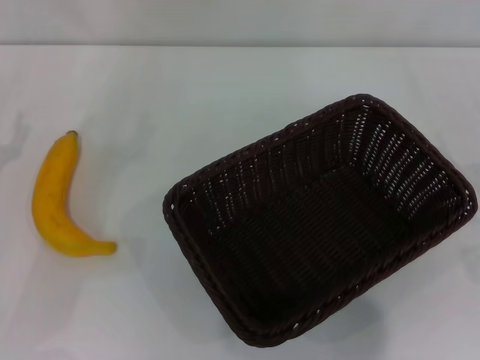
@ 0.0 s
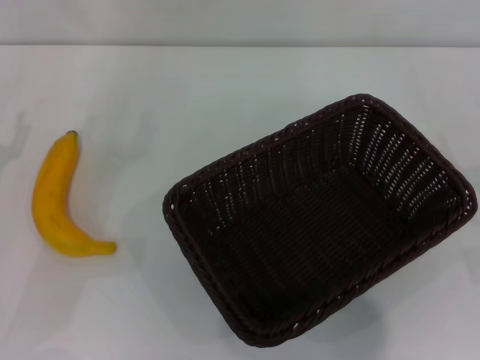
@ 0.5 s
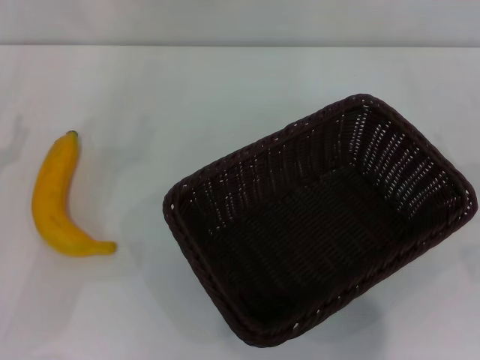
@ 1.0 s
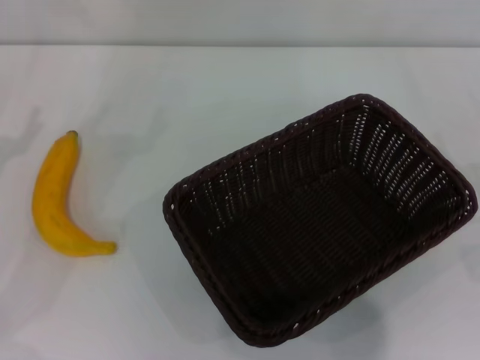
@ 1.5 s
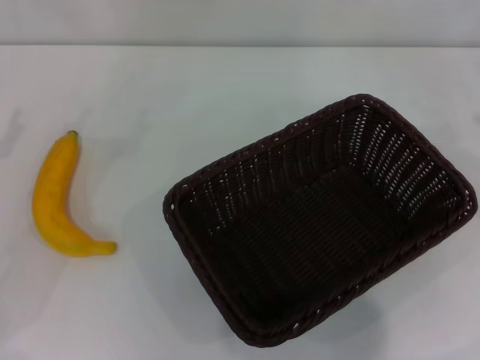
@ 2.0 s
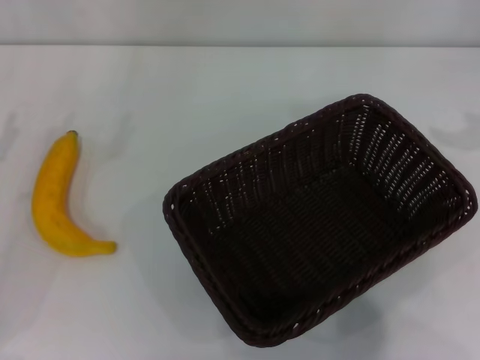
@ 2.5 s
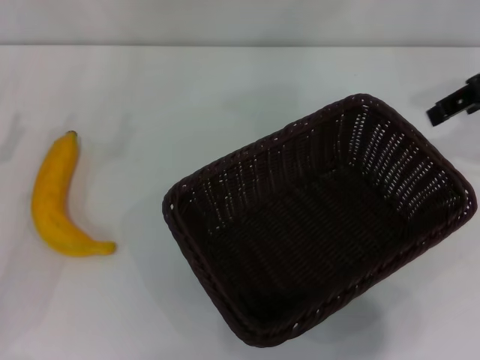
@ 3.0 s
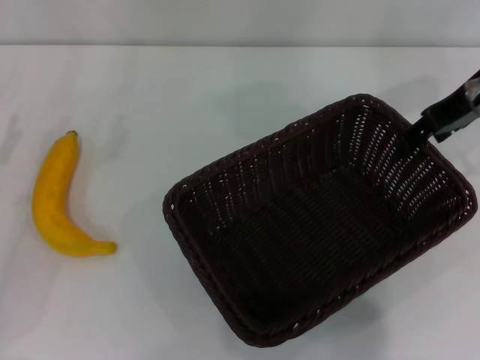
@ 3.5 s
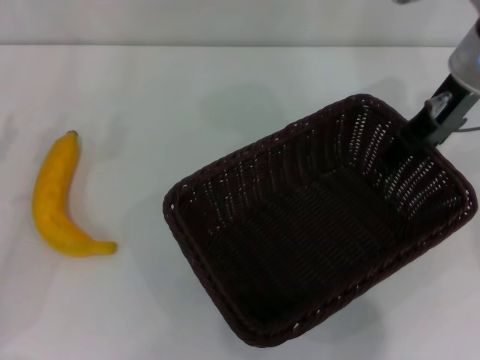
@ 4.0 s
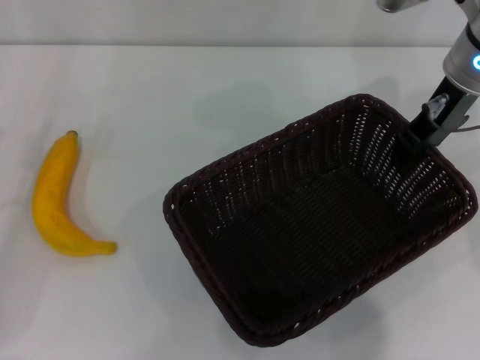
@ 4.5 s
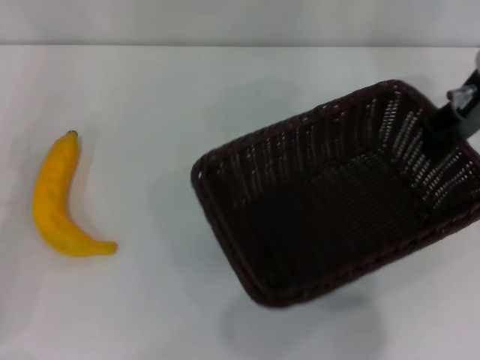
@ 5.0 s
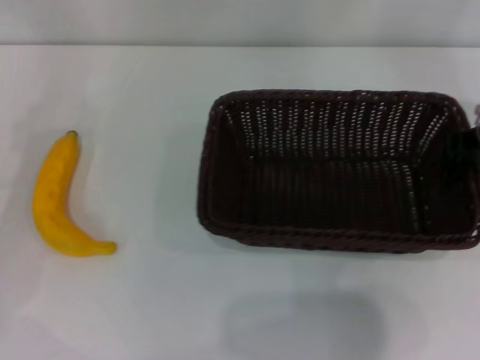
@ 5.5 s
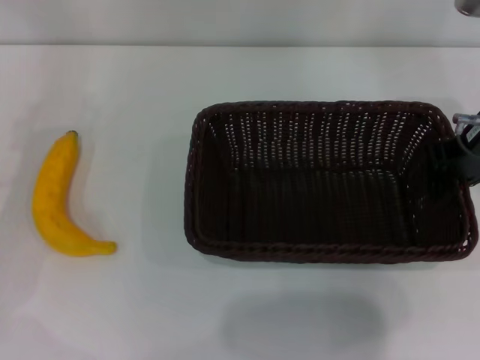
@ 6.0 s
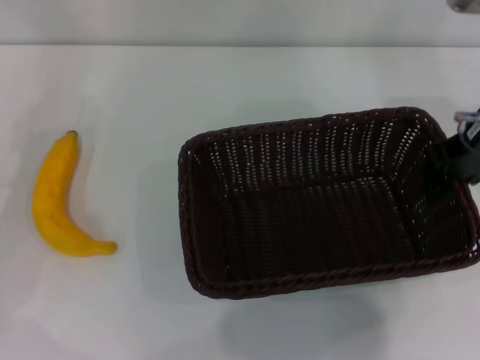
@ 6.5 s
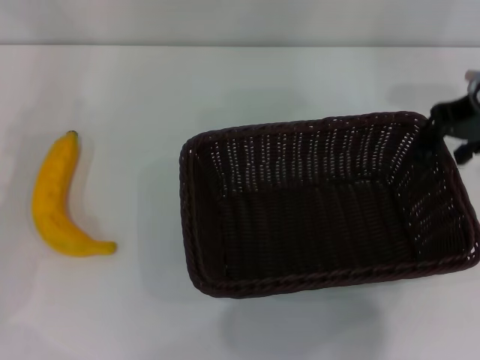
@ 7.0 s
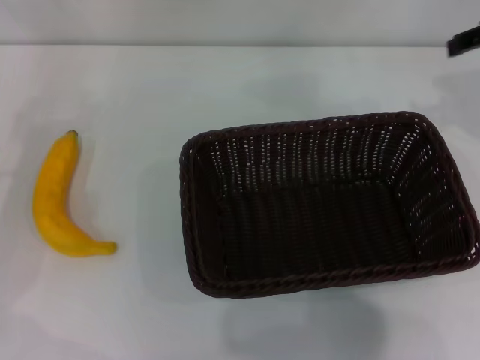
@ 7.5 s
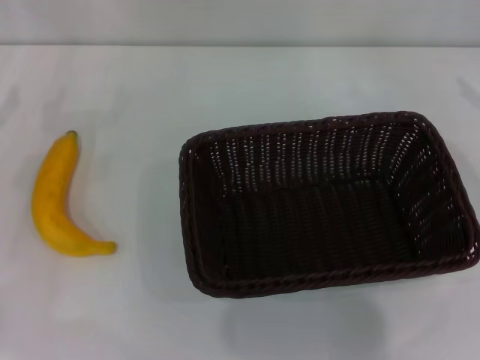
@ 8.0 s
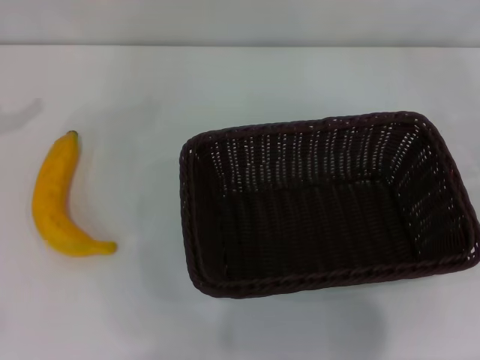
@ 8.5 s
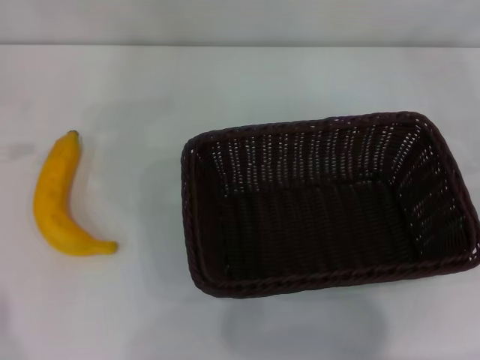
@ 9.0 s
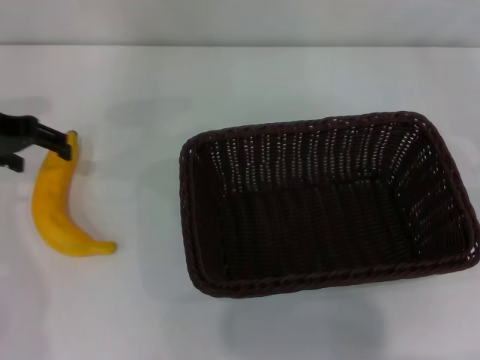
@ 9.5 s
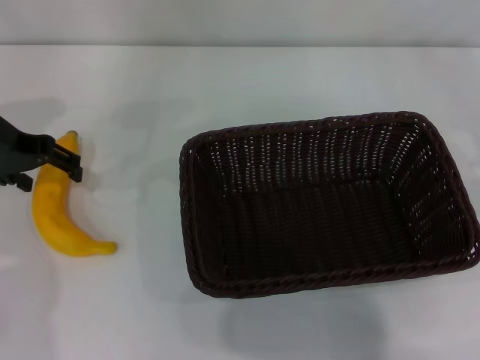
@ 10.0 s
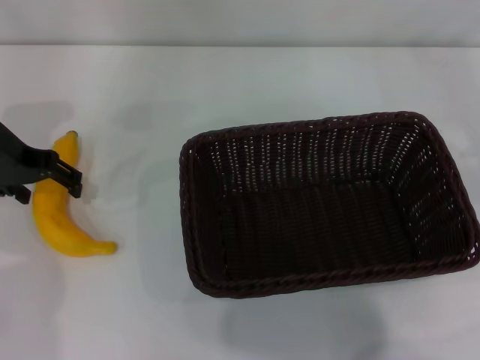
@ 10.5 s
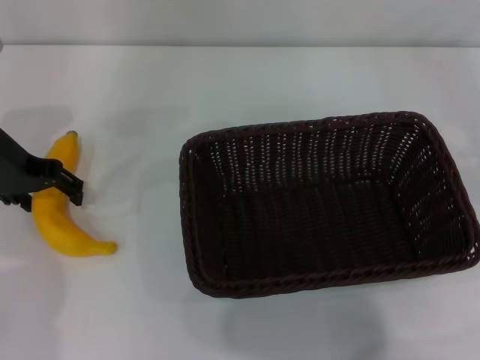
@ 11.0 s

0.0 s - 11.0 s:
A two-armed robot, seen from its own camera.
Step, 0.0 s - 4.5 s: Pick up the dark basket with the right gripper.
Step, 5.0 s - 6.5 s: Place the dark basket in the center of view with the right gripper.
2.0 s - 3.5 s: The right gripper goes about 25 cm to the left, forward and upward.
3.5 s - 5.5 s: The left gripper moves roughly 5 cm. The right gripper closes up.
5.5 s - 7.5 s: The right gripper is displaced to the right by about 5 cm, and opens its fingers.
7.5 s - 9.0 s: The right gripper shifts about 20 cm downward, to the right and backward, while the left gripper travels upward and forward by roughly 15 cm.
9.0 s - 11.0 s: The left gripper travels to the right and downward by some 15 cm.

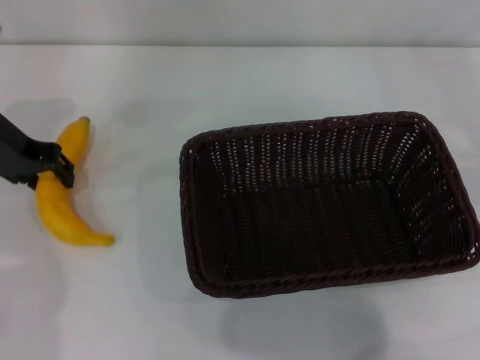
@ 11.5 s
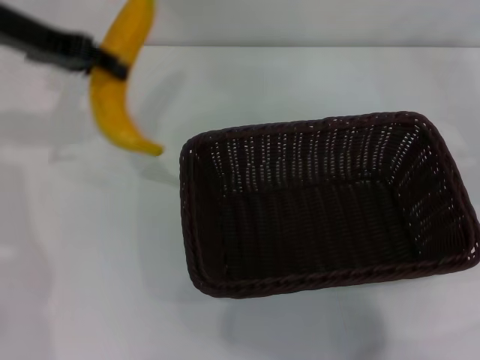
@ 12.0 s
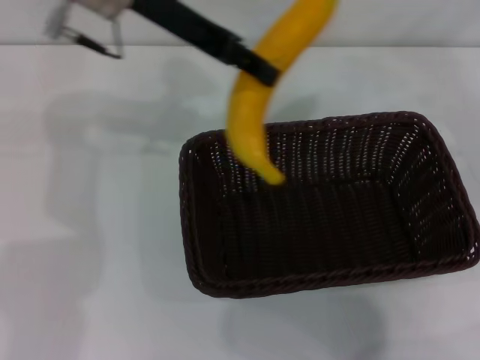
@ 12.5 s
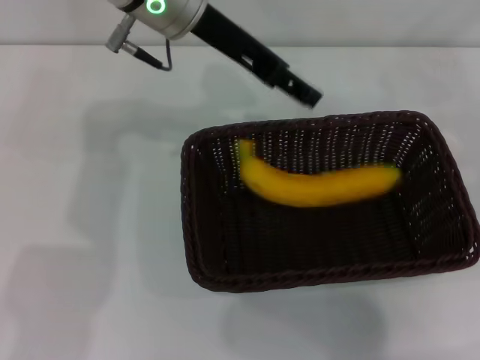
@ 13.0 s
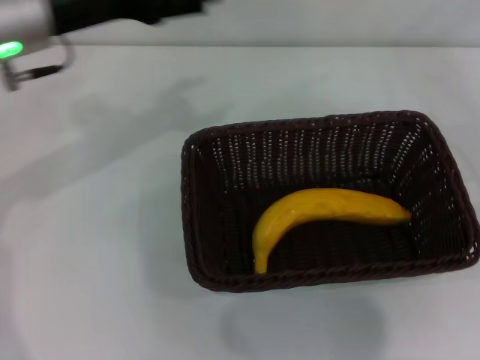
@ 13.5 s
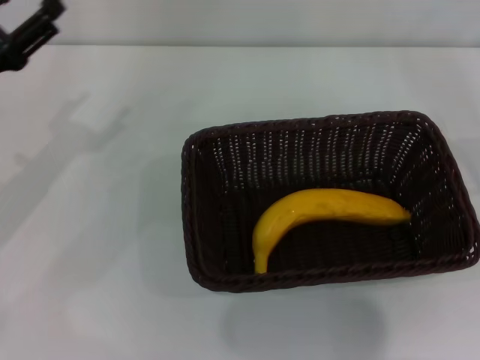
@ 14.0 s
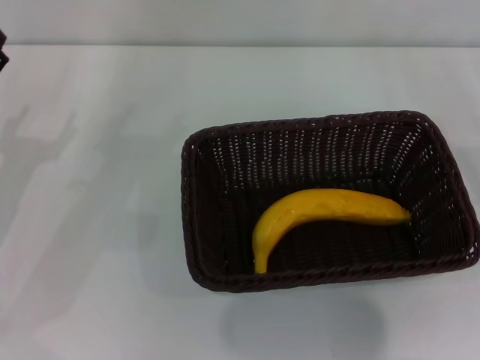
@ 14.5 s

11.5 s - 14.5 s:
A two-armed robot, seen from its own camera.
Step, 12.0 s - 13.0 s: Place the banana into the dark basket with the left gripper.
11.5 s - 13.0 s: The left gripper travels to the right and upward by approximately 20 cm.
13.0 s - 14.5 s: The right gripper heads downward, covering approximately 5 cm; the left gripper travels to the left, downward and backward by roughly 30 cm, and opens its fingers.

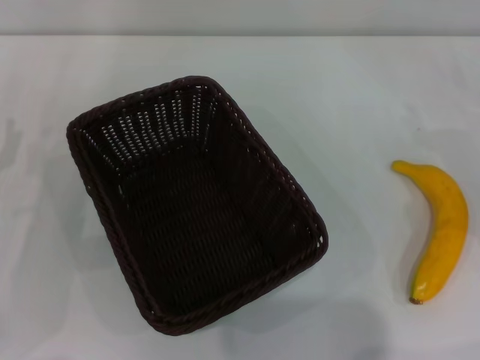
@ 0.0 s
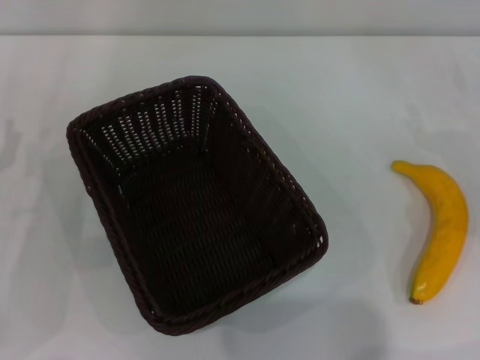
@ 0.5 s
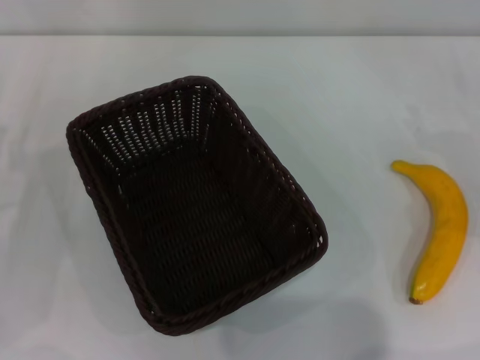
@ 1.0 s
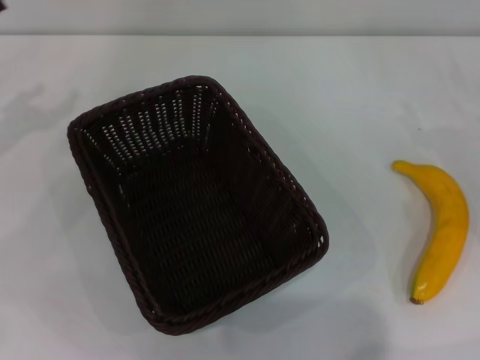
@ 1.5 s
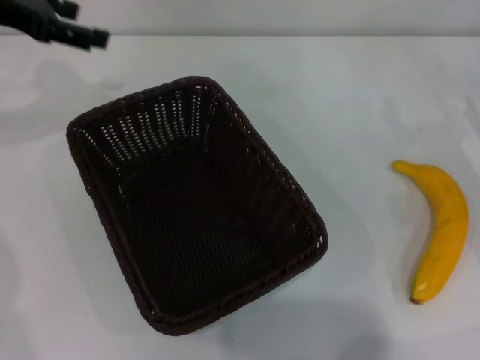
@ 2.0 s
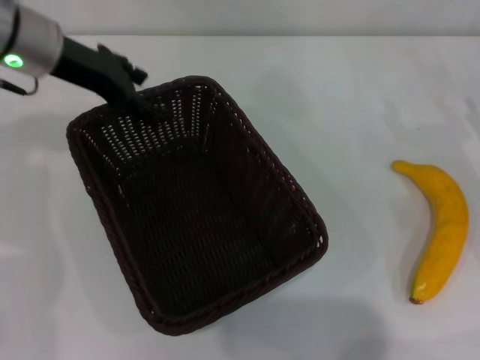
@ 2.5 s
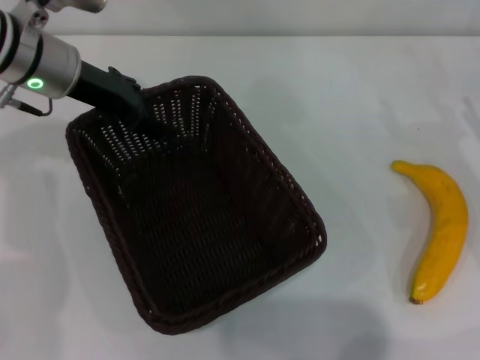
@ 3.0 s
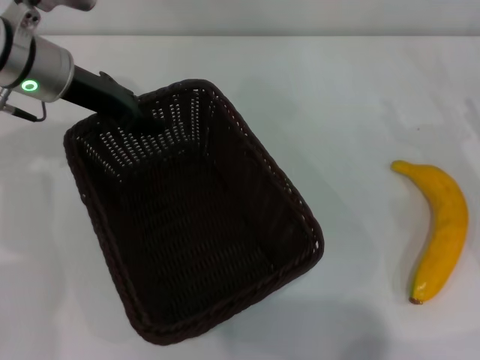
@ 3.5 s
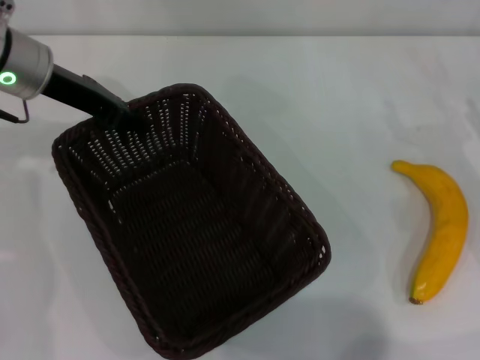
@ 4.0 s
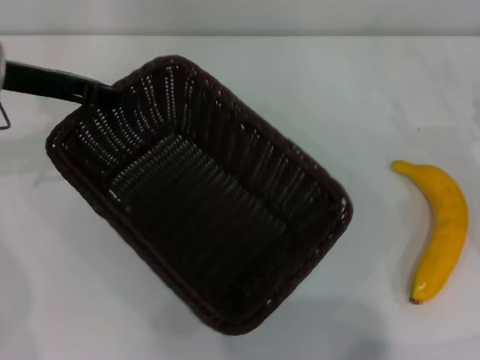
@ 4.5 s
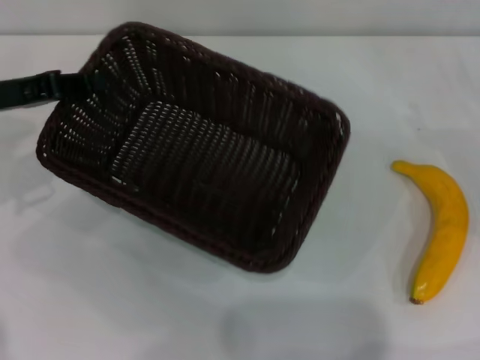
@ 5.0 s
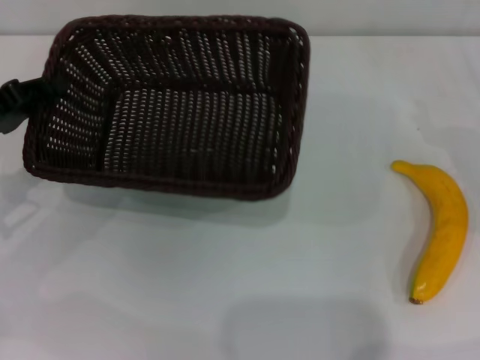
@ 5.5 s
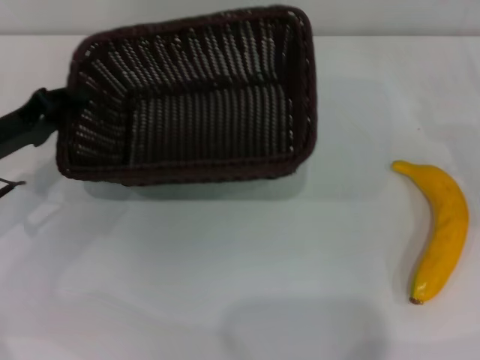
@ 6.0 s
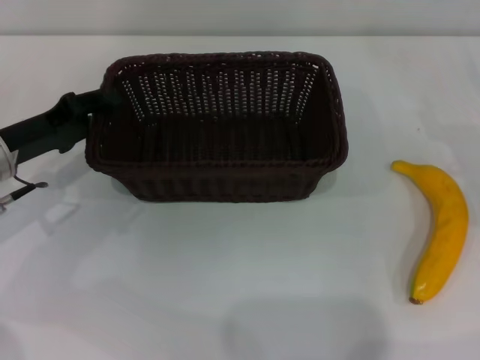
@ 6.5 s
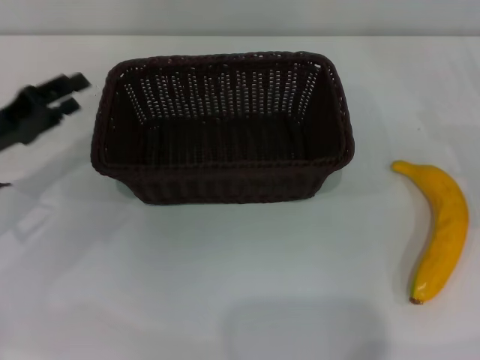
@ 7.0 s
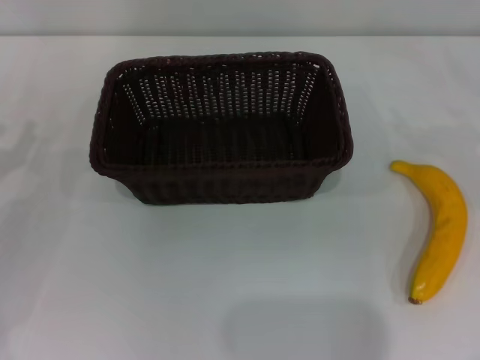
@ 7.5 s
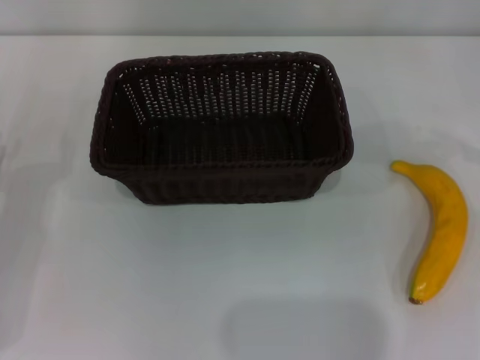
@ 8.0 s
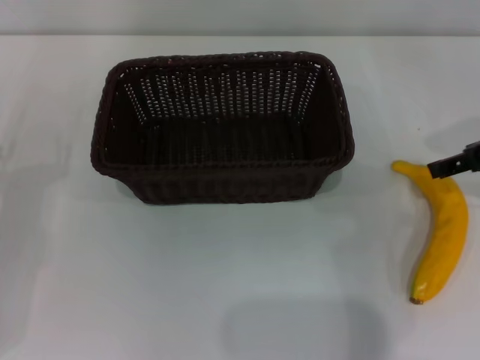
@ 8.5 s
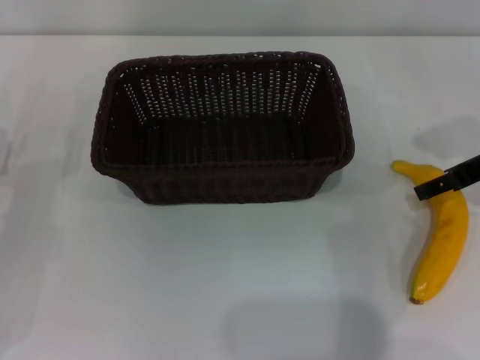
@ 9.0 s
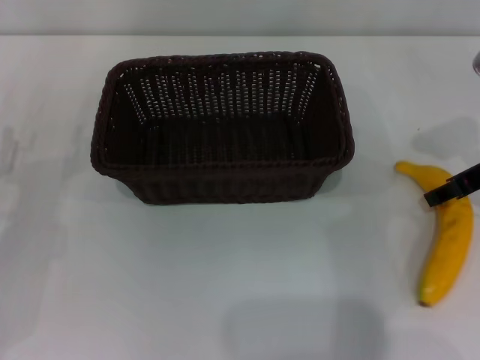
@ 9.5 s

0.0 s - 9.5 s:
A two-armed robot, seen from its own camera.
Step, 0.0 s - 4.0 s: Pick up the dark basket with the left gripper.
Step, 4.5 s - 6.5 s: Place the dark basket in the center of view with the left gripper.
0.0 s - 2.0 s: The left gripper is displaced upward and forward by approximately 25 cm.
2.0 s - 4.0 s: The left gripper goes roughly 10 cm downward and to the right, and closes.
4.0 s - 5.5 s: The left gripper travels to the left, backward and downward by about 15 cm.
5.5 s - 7.5 s: The left gripper moves some 5 cm, and opens its fingers. Meanwhile the right gripper moves approximately 5 cm.
7.5 s - 9.5 s: The right gripper goes some 15 cm to the left.

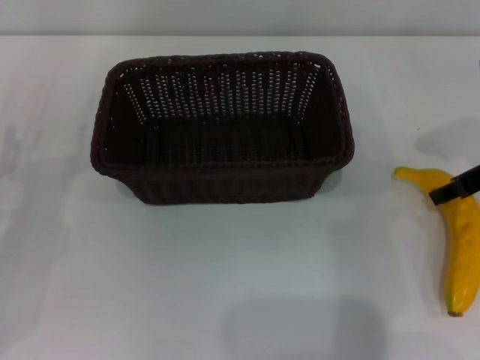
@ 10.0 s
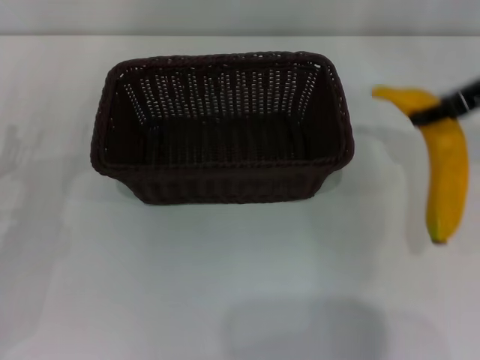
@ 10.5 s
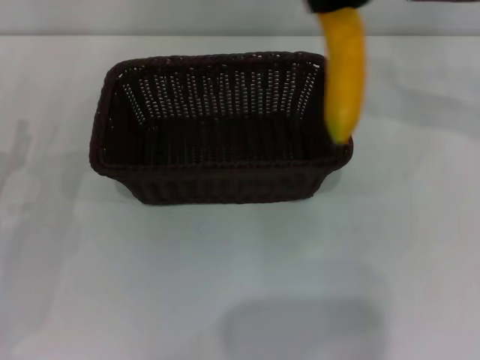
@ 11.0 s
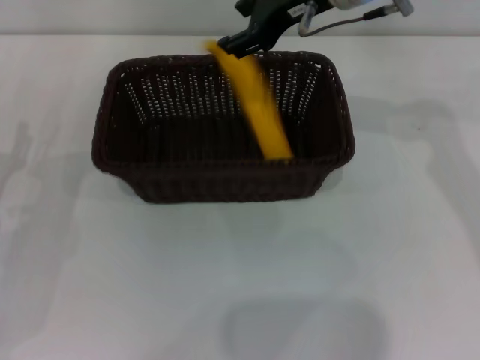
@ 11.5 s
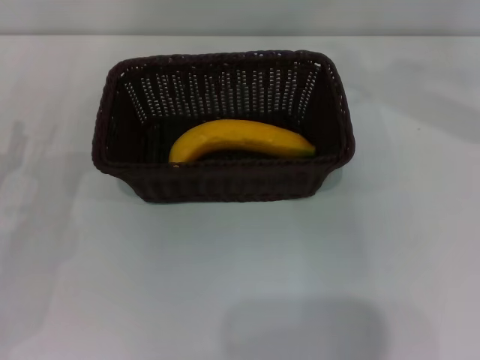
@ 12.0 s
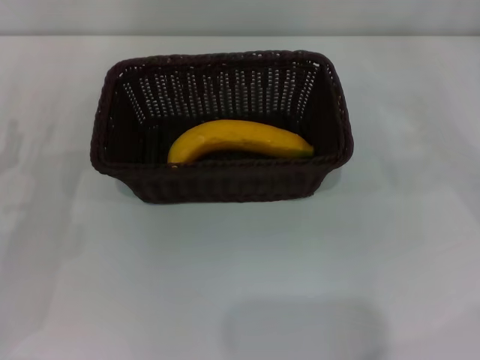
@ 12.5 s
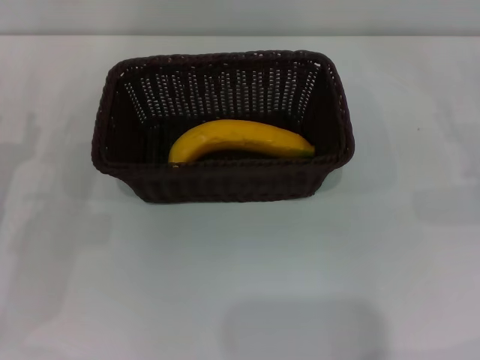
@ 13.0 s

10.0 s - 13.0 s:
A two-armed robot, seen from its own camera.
Step, 10.5 s - 11.5 s: Place the banana into the dark basket with the right gripper.
10.0 s - 11.5 s: The right gripper moves to the left, upward and forward, approximately 20 cm.
11.5 s - 13.0 s: The right gripper heads to the right and downward, covering approximately 35 cm, and opens its fingers.
